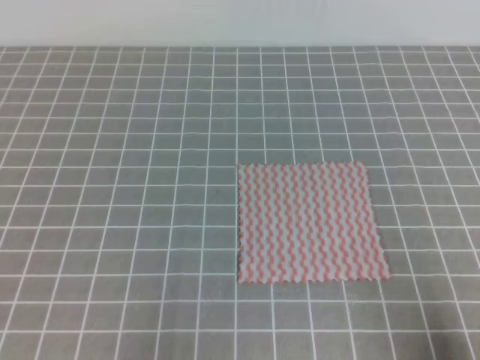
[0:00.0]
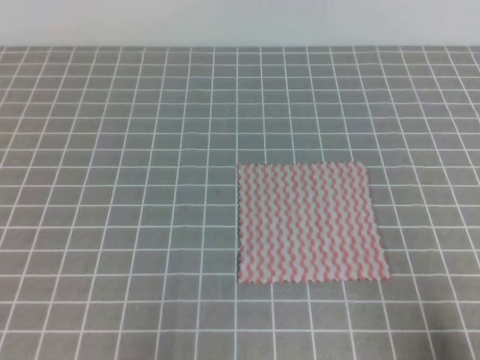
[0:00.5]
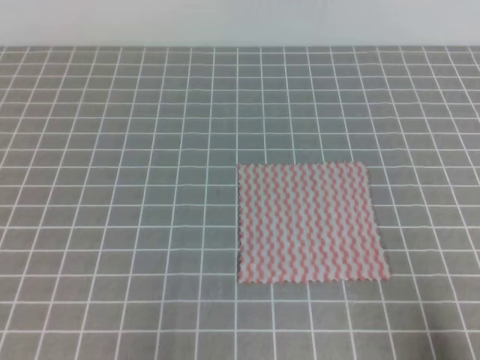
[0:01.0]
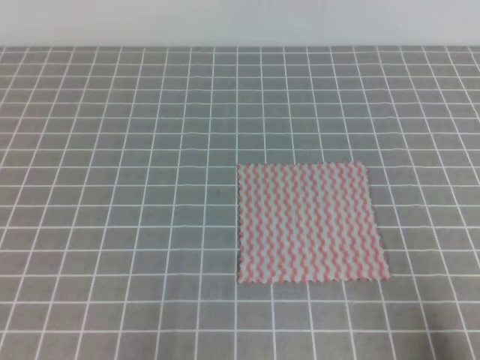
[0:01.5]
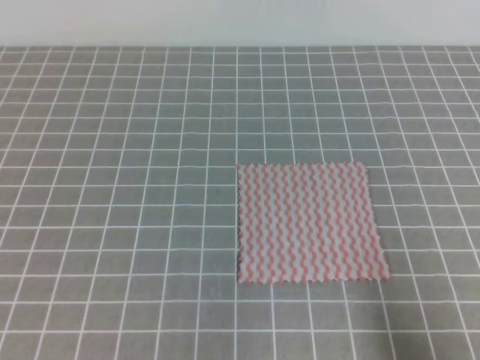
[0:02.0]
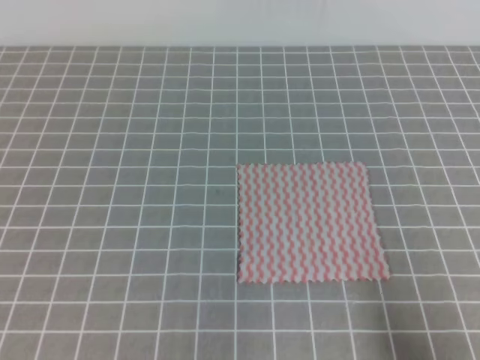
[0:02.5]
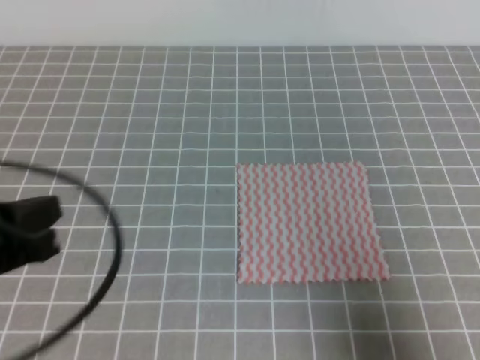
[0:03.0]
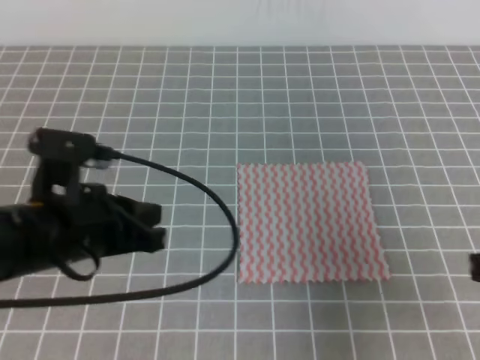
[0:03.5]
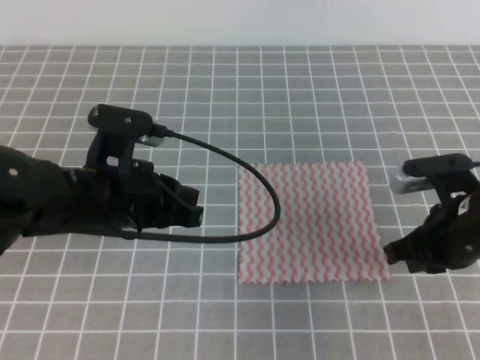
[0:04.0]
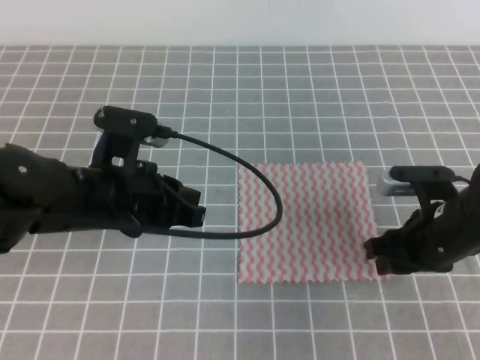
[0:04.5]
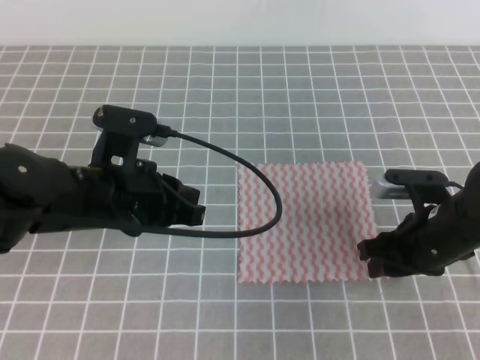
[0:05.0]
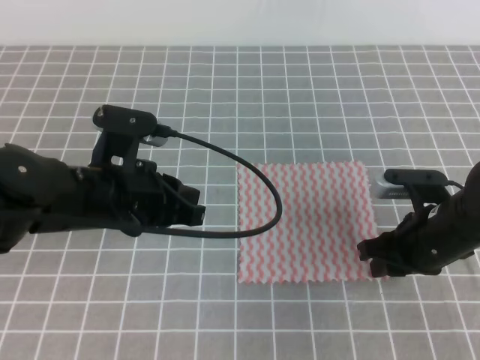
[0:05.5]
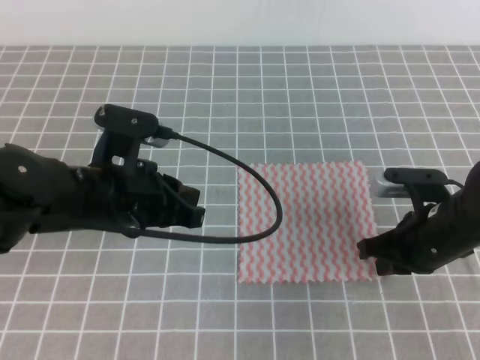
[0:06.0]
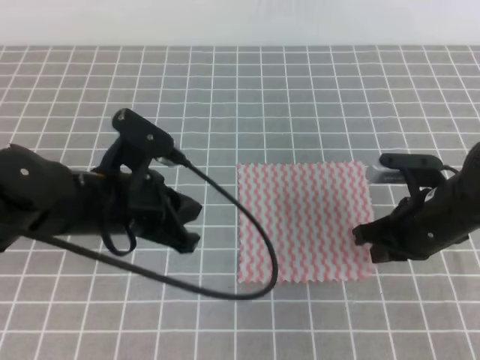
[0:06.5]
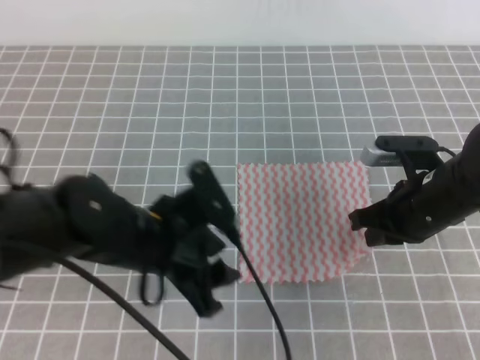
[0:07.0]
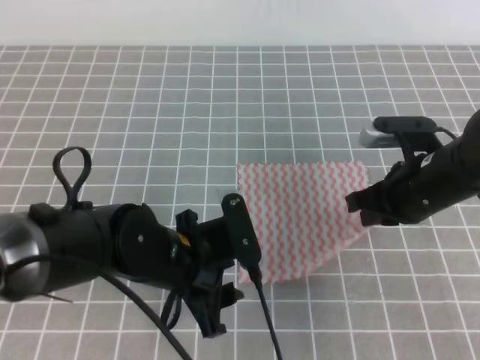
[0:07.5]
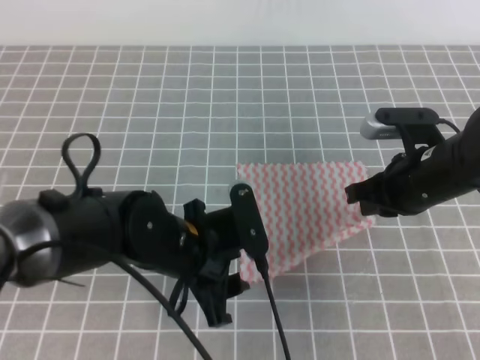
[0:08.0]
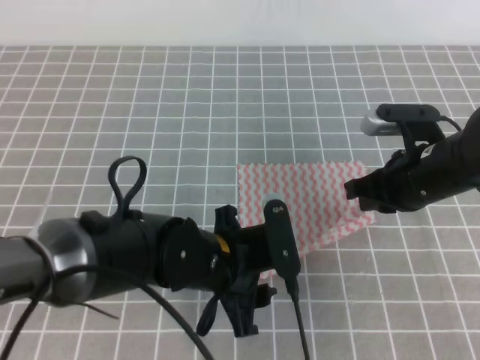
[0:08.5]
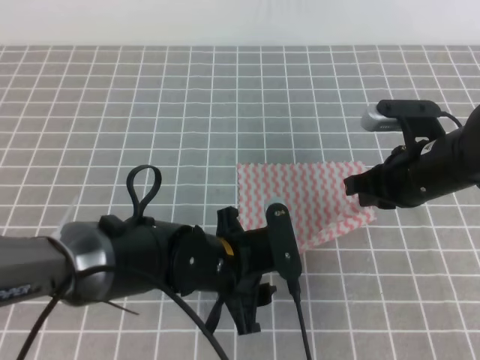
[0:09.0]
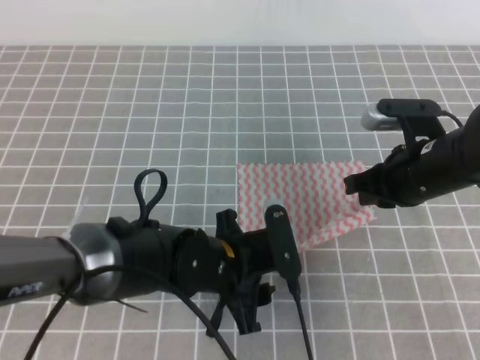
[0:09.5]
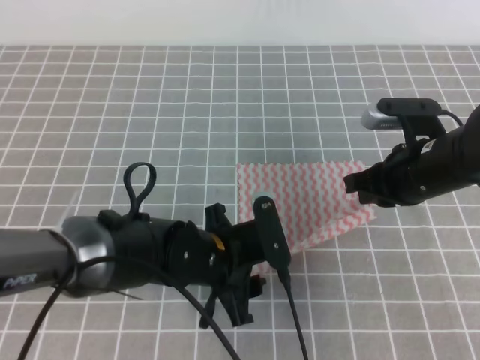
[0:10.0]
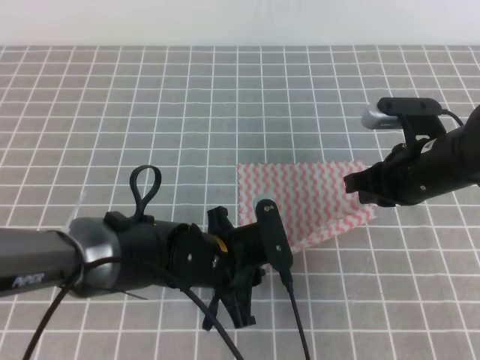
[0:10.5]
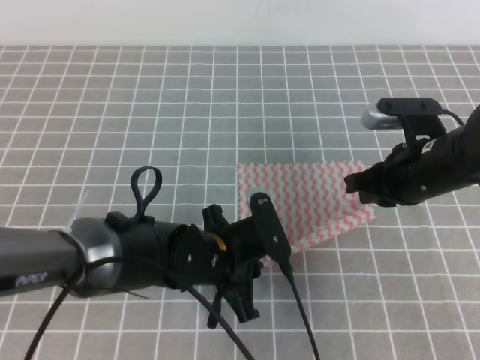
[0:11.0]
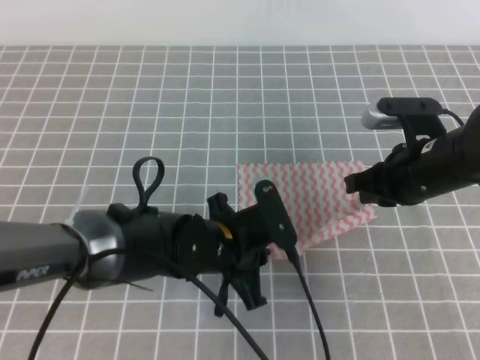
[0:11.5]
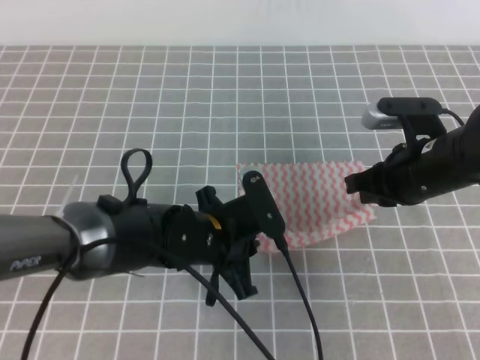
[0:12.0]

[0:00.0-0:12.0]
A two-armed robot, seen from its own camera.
0:02.0 to 0:04.0: The right gripper goes roughly 20 cm forward. The left gripper travels forward and to the right by about 25 cm.
0:04.0 to 0:06.0: The right gripper ends up some 5 cm from where it was, and opens and closes again.
0:06.0 to 0:08.0: The left gripper travels to the right and downward by some 10 cm, and opens up; the right gripper changes place by about 5 cm.
0:08.0 to 0:10.0: The grippers make only small movements.
0:10.0 to 0:12.0: The left gripper closes.

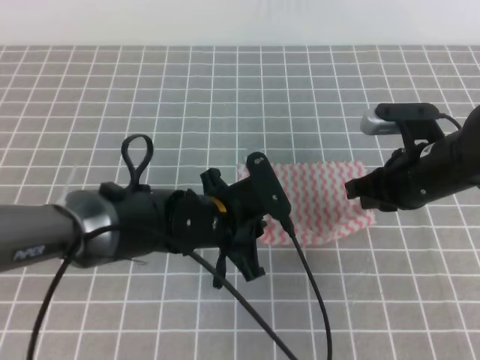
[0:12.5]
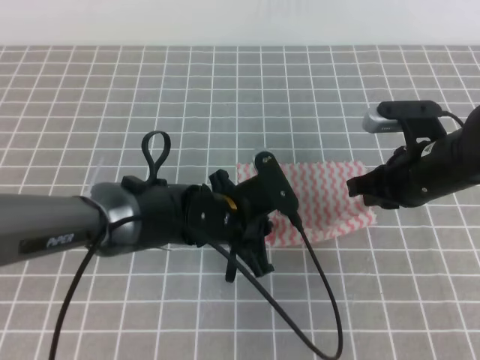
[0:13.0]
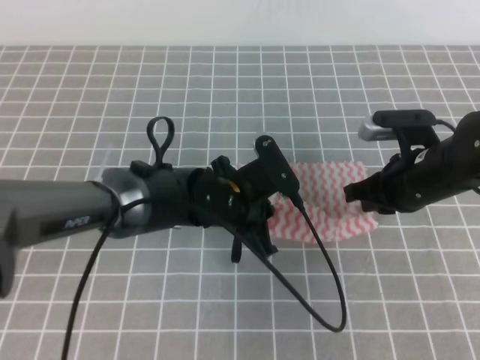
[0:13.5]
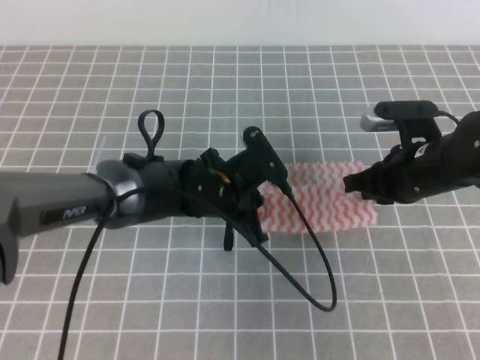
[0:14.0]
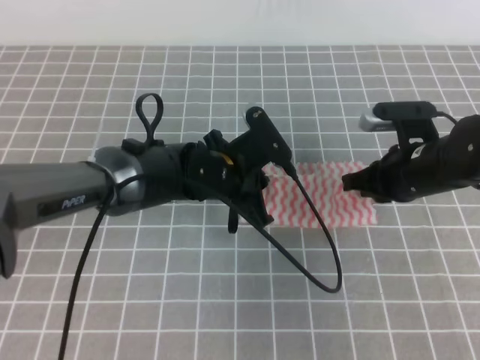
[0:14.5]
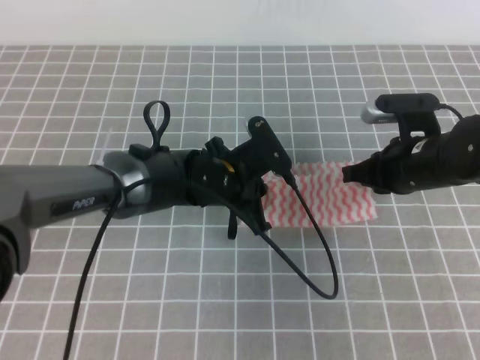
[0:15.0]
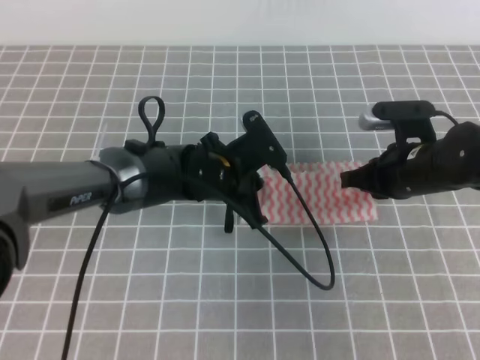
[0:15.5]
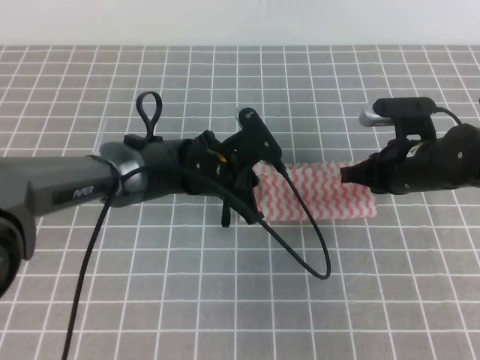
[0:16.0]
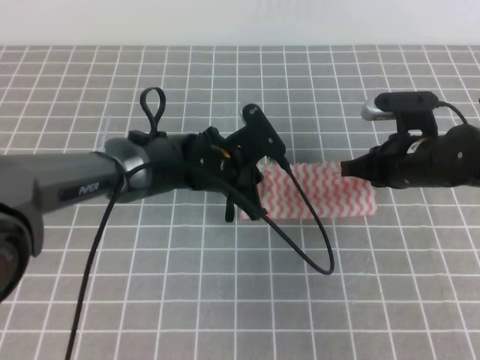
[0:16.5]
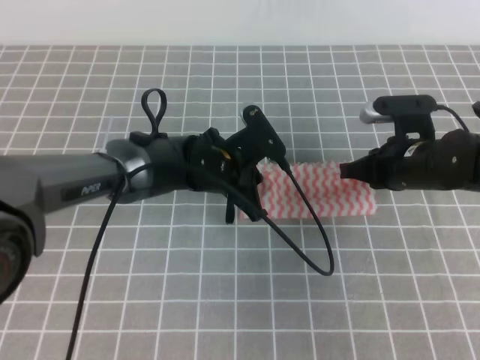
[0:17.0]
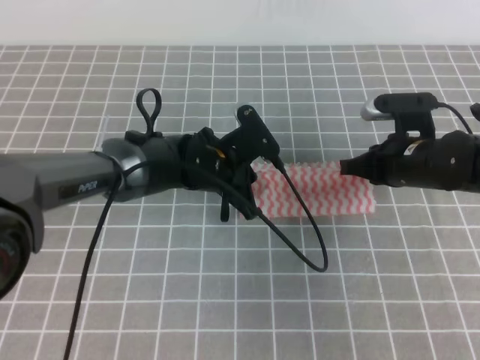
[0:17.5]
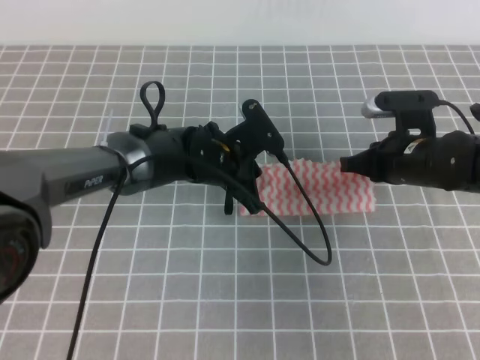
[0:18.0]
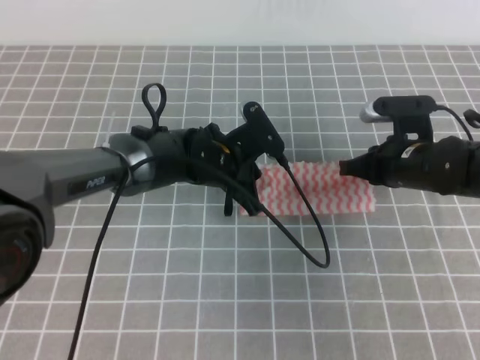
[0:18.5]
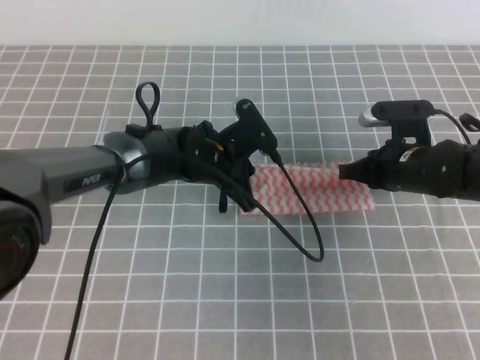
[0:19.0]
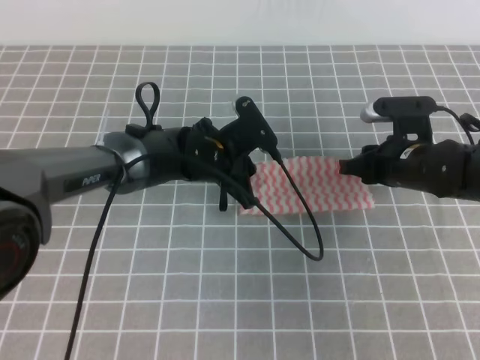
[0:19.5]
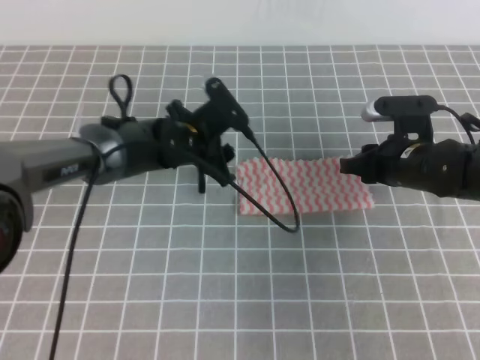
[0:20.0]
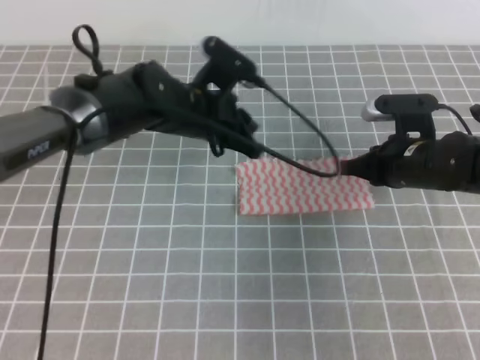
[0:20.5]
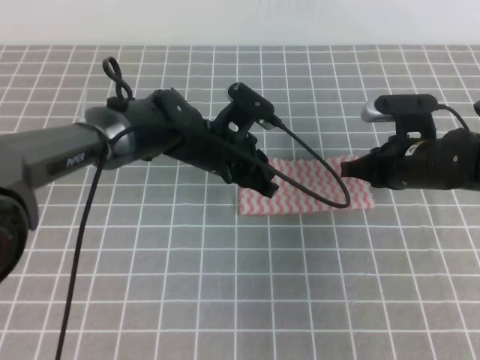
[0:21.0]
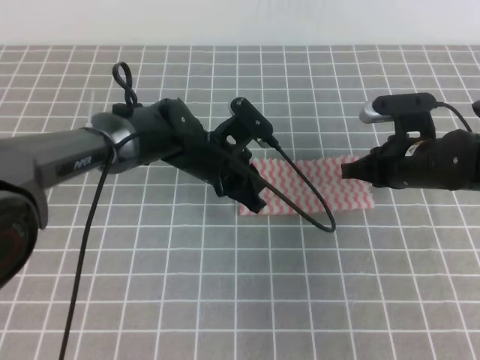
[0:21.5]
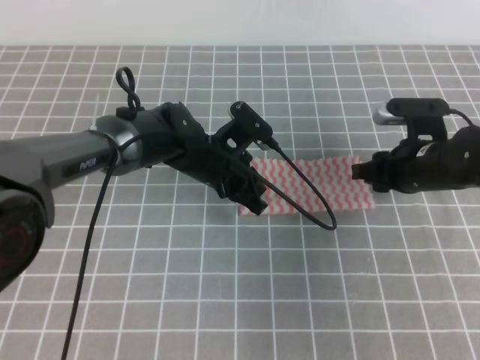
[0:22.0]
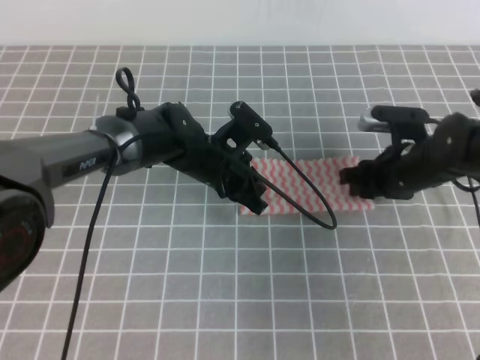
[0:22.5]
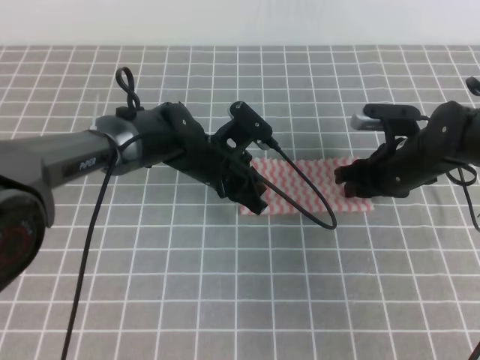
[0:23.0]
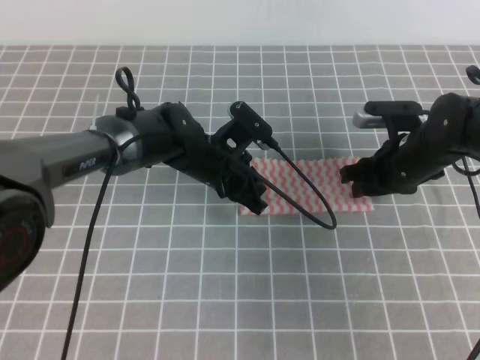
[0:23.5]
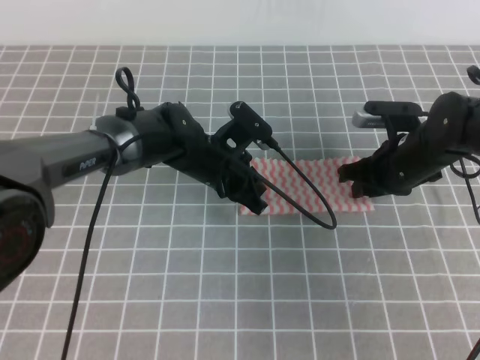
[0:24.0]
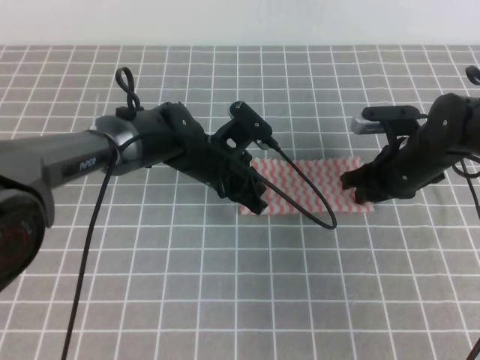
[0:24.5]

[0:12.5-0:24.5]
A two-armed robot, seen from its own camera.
0:12.5 to 0:14.5: The left gripper goes about 5 cm forward.
0:14.5 to 0:18.5: The grippers move only a little.
0:18.5 to 0:20.5: The left gripper goes roughly 5 cm upward, and opens and closes again. Meanwhile the right gripper opens, then closes once more.
0:20.5 to 0:22.5: The left gripper is displaced downward by some 5 cm, while the right gripper opens.
0:22.5 to 0:24.5: The grippers move only a little.

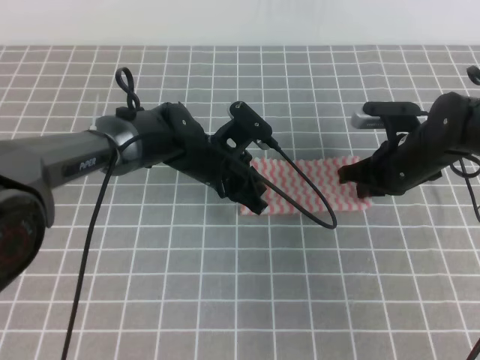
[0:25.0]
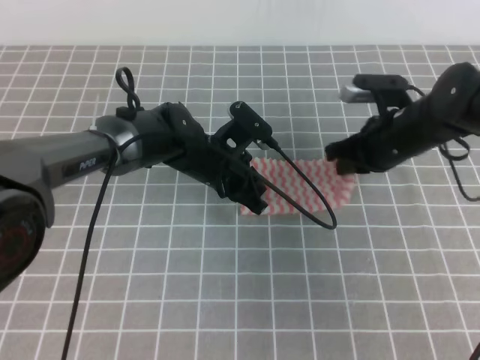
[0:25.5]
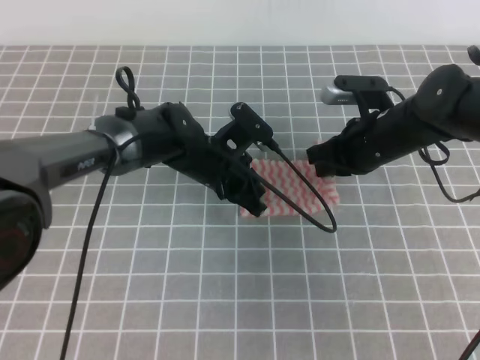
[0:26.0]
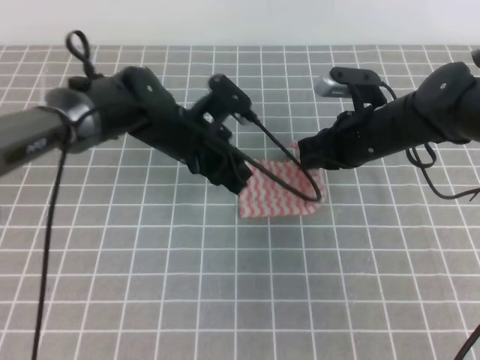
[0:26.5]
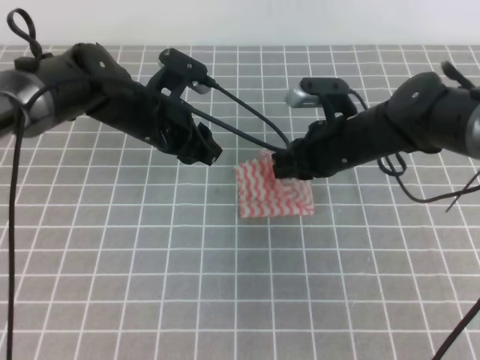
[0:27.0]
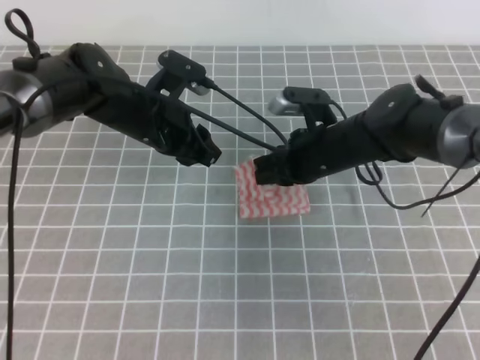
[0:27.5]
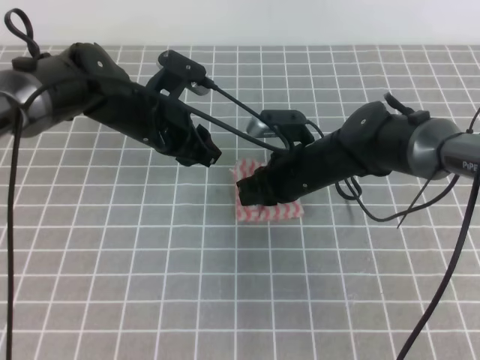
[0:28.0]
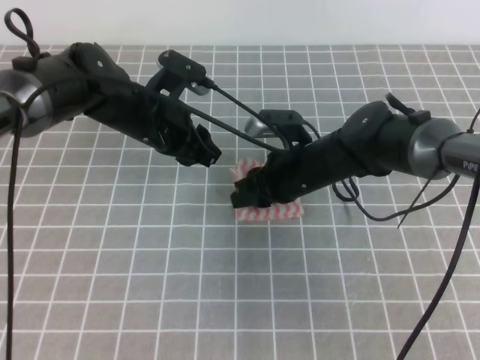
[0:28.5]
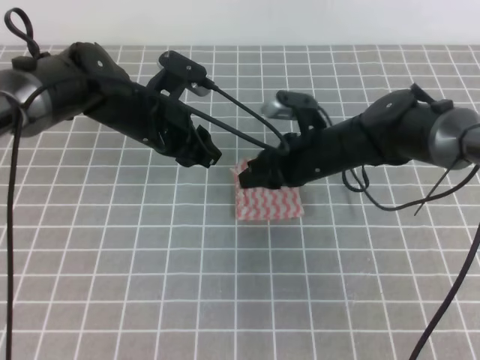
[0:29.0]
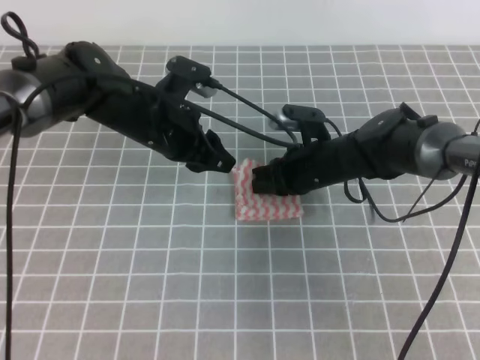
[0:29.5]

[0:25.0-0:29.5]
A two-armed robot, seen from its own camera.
0:25.0 to 0:27.0: The left gripper heads upward and to the left, covering approximately 10 cm, and opens. The right gripper shifts roughly 10 cm to the left.
0:27.0 to 0:29.5: The right gripper travels downward by some 5 cm, and opens and closes again.
